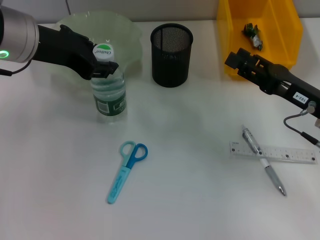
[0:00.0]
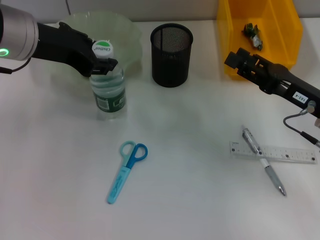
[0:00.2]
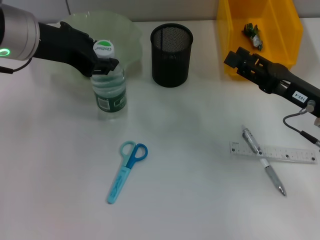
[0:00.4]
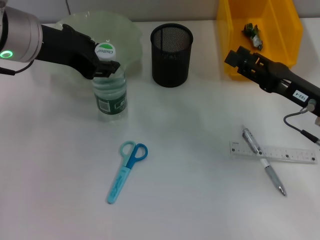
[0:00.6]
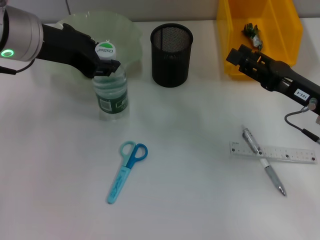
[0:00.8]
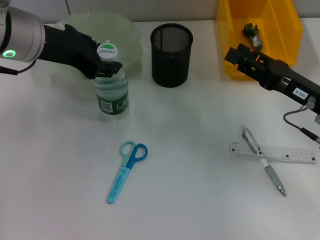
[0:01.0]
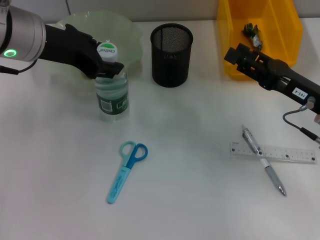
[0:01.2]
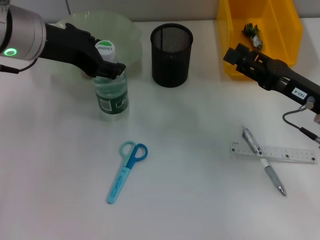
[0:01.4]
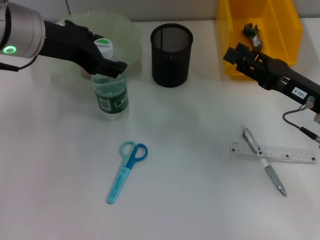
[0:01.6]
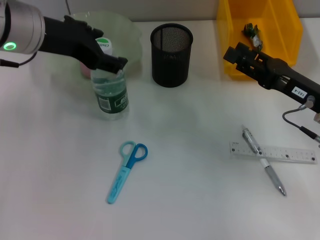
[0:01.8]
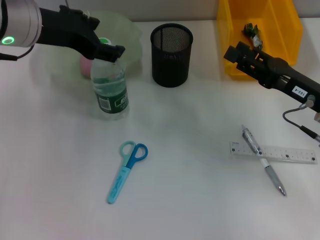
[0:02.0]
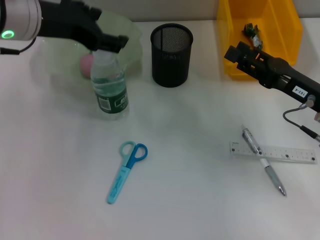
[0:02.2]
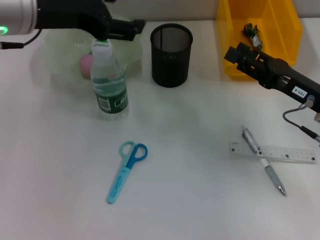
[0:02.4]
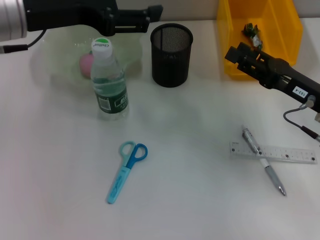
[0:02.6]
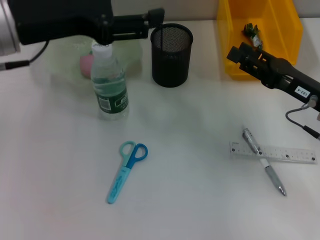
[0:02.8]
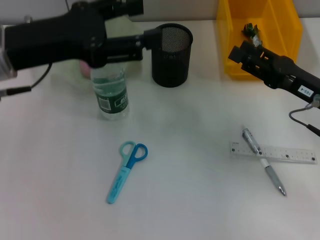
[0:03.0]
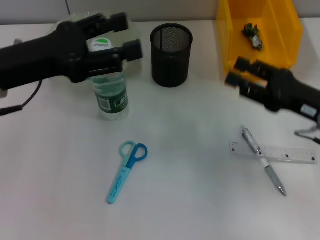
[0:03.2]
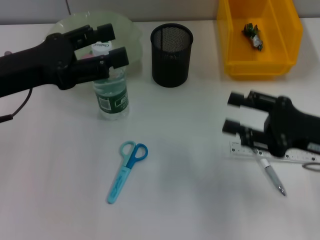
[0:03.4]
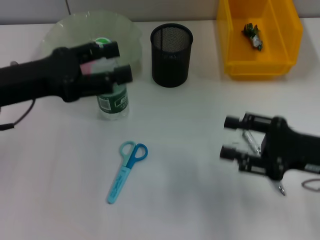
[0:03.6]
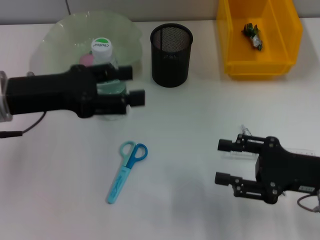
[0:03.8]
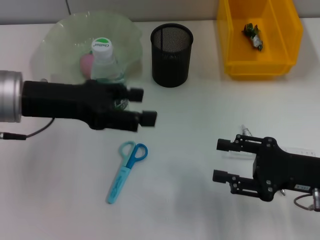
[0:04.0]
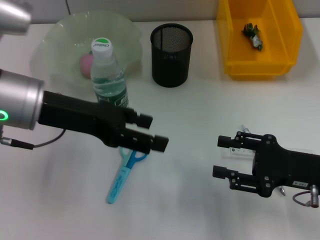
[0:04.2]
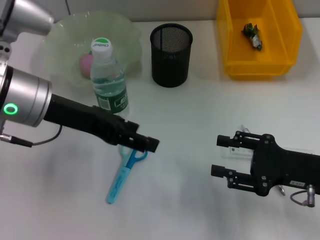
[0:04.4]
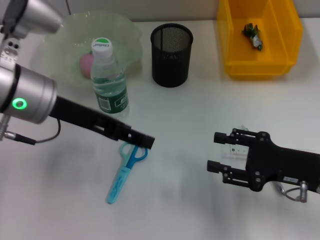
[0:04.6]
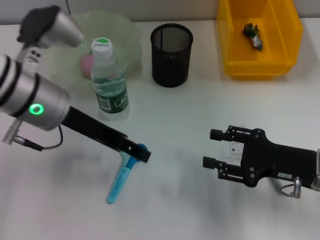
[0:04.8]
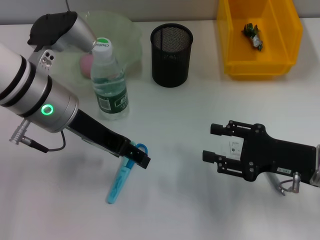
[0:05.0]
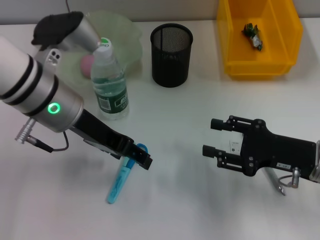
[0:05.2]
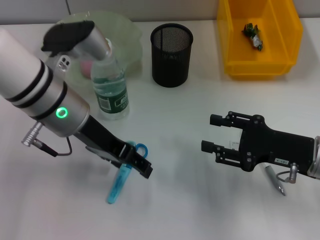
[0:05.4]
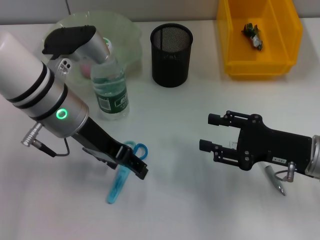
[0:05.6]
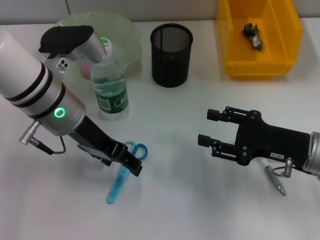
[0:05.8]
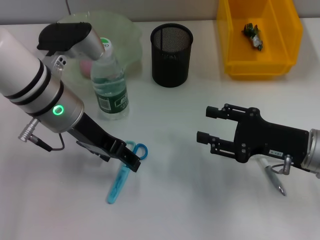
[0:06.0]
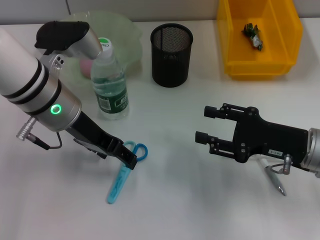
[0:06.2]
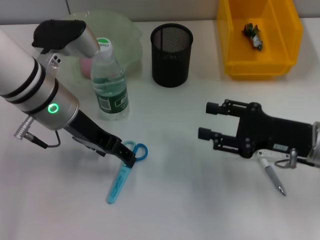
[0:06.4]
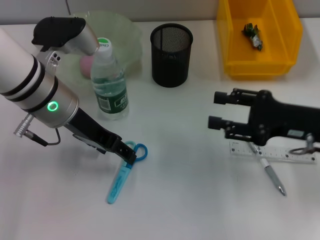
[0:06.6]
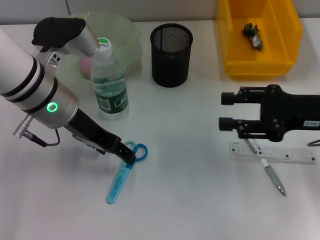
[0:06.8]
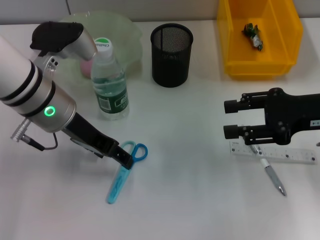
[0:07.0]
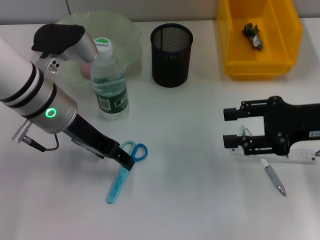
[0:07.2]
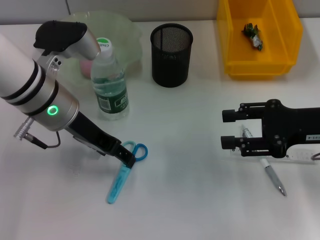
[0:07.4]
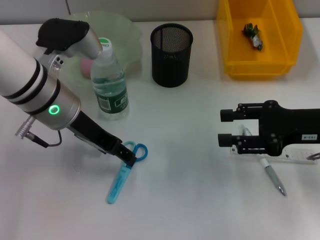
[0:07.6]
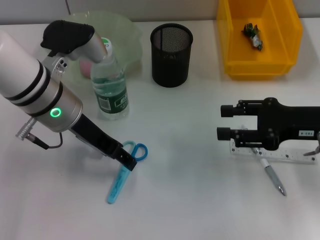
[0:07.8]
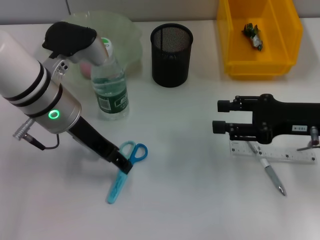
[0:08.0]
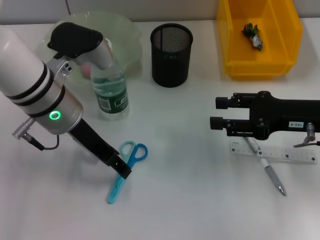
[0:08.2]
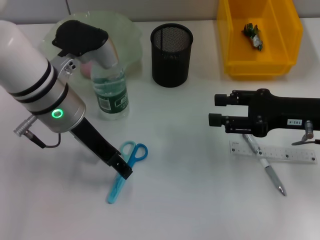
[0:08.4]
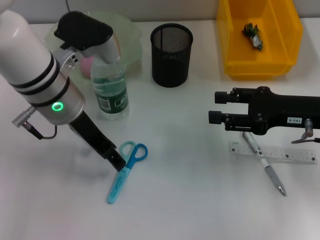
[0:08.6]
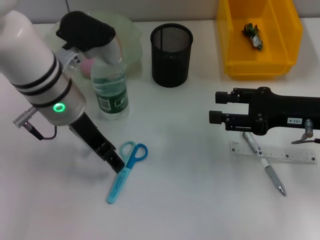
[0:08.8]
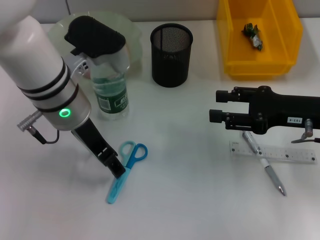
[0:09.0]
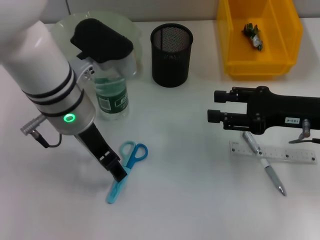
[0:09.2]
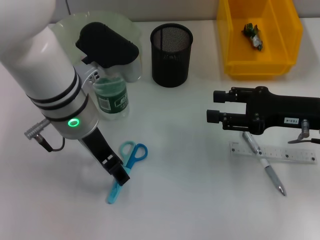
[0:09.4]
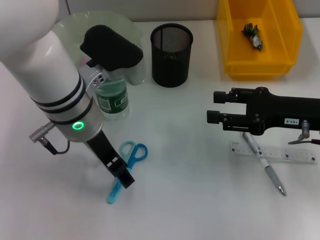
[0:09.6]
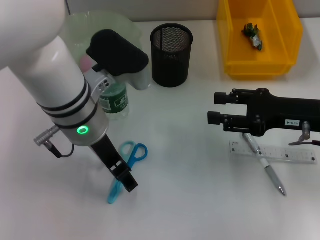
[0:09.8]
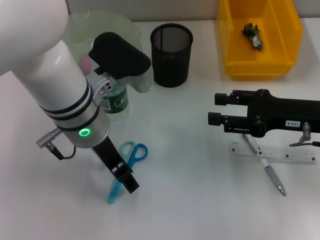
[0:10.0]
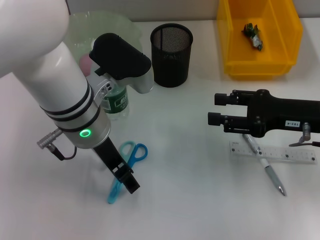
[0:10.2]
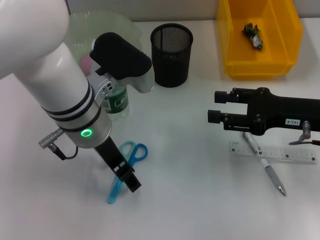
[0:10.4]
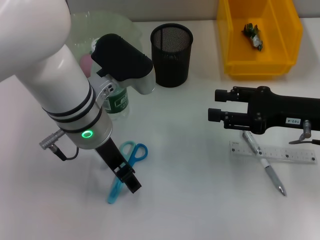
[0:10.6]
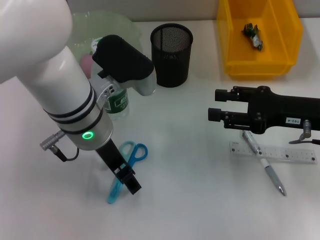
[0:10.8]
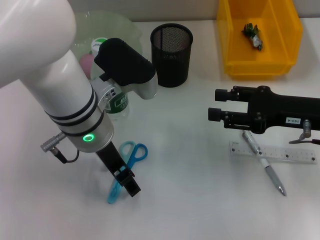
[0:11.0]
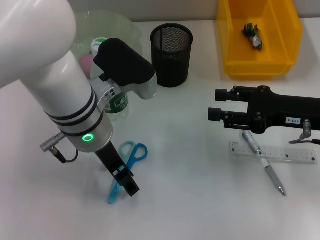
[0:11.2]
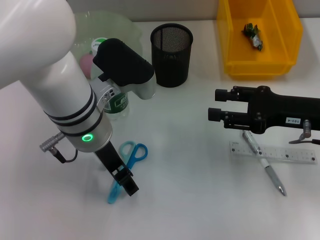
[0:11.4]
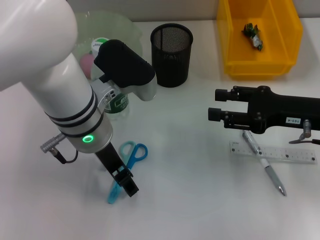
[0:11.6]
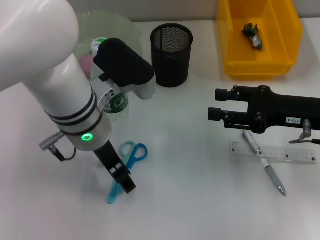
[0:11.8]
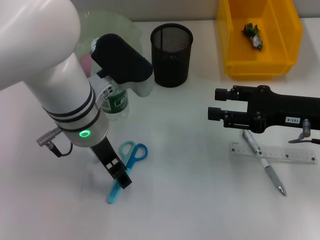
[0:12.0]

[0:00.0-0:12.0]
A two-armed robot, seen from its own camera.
0:00.0 to 0:01.6: The two grippers keep their place.
0:01.6 to 0:03.0: The left gripper ends up some 5 cm from where it was.
0:03.0 to 0:04.4: The right gripper moves backward, approximately 5 cm.
0:04.4 to 0:06.0: The left gripper shifts by roughly 5 cm.
0:06.0 to 0:07.6: The right gripper shifts roughly 5 cm upward.
0:07.6 to 0:09.0: The grippers stay close to where they were, moving slightly.
0:09.0 to 0:12.0: There are only small adjustments of the grippers.

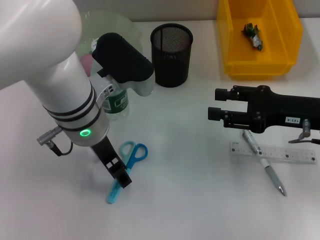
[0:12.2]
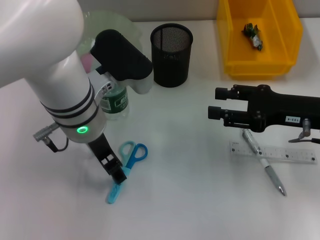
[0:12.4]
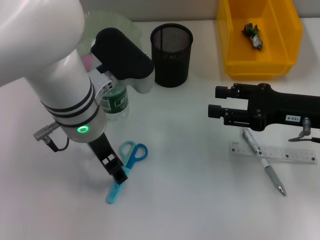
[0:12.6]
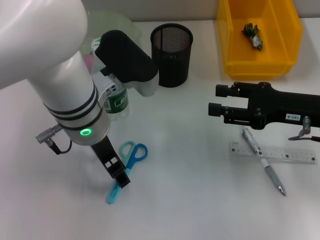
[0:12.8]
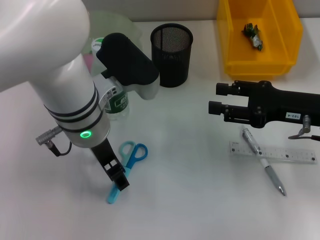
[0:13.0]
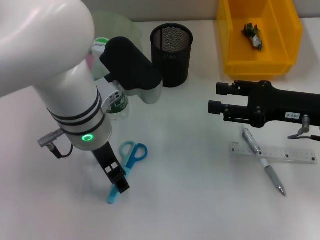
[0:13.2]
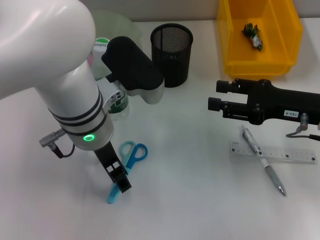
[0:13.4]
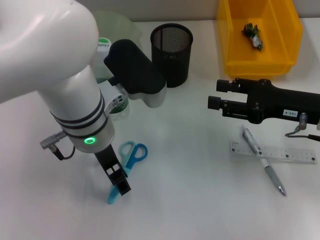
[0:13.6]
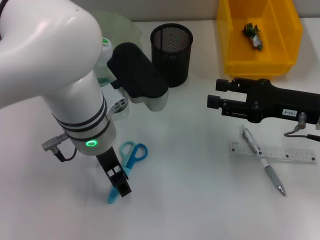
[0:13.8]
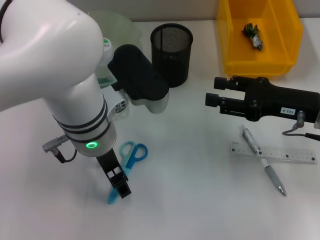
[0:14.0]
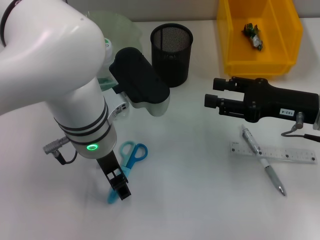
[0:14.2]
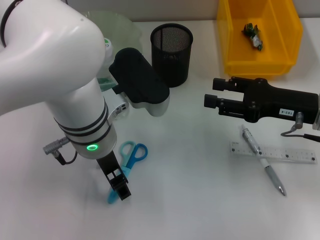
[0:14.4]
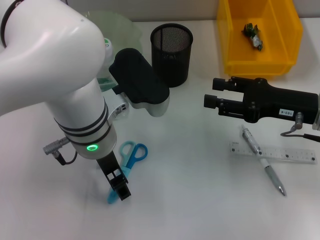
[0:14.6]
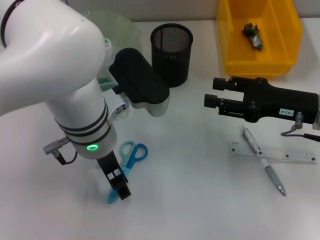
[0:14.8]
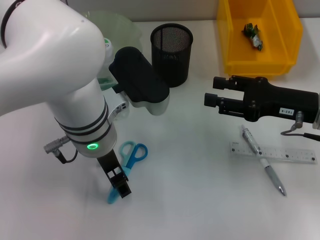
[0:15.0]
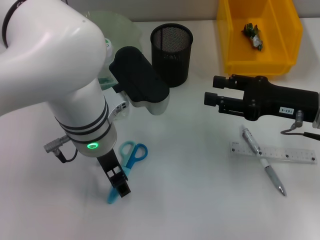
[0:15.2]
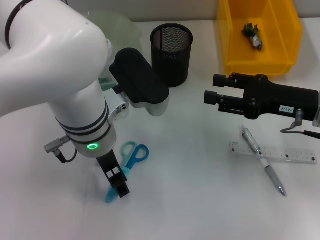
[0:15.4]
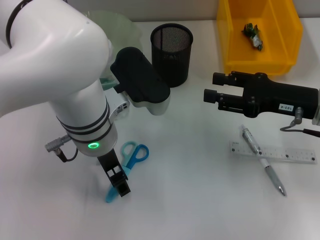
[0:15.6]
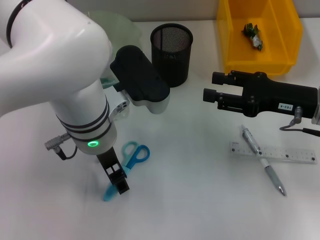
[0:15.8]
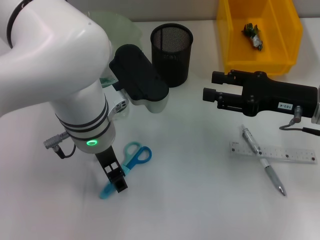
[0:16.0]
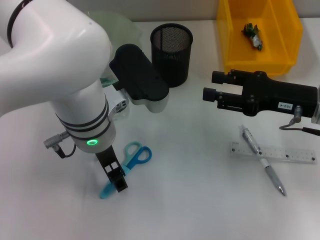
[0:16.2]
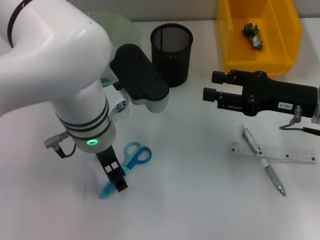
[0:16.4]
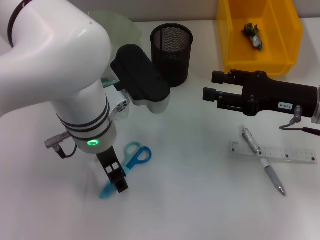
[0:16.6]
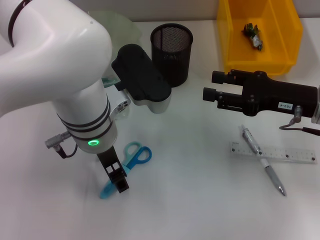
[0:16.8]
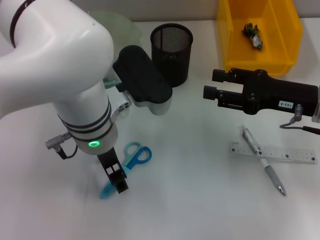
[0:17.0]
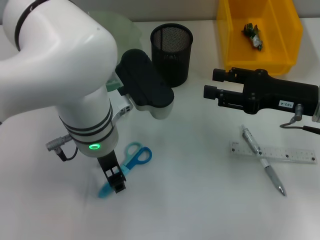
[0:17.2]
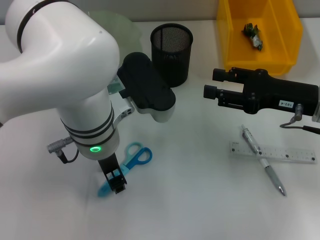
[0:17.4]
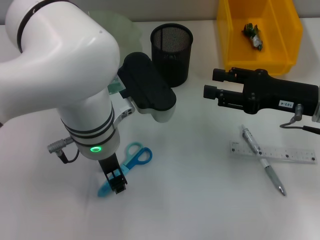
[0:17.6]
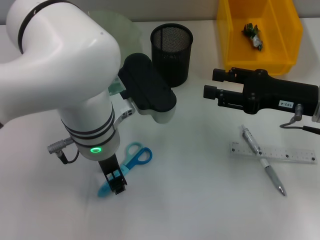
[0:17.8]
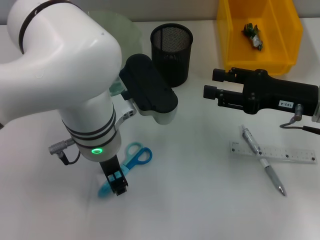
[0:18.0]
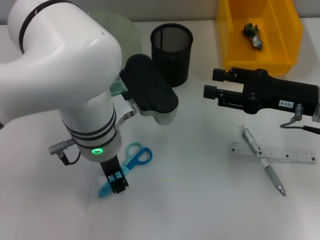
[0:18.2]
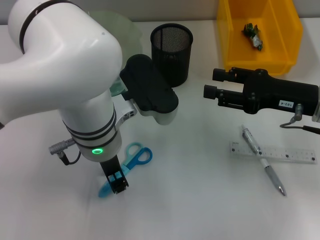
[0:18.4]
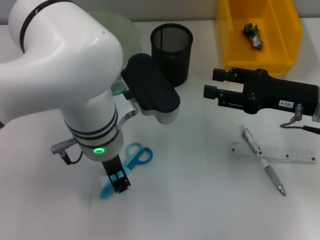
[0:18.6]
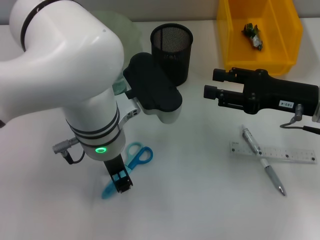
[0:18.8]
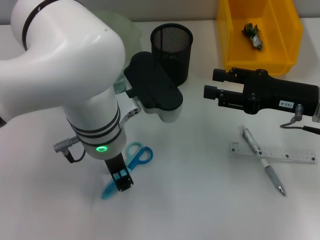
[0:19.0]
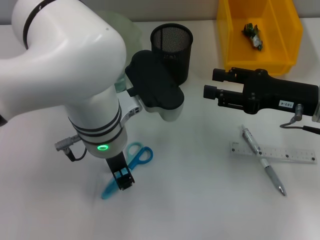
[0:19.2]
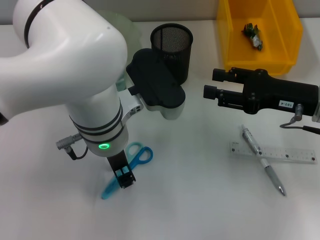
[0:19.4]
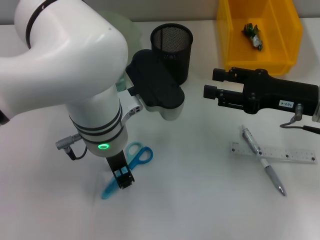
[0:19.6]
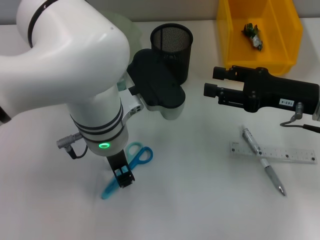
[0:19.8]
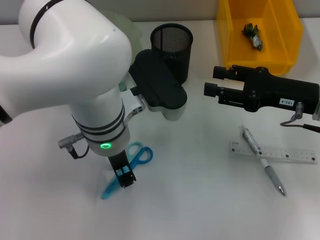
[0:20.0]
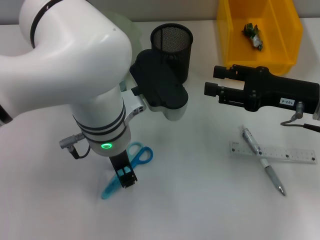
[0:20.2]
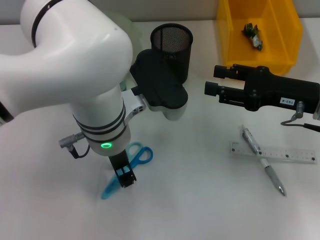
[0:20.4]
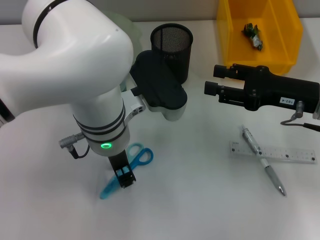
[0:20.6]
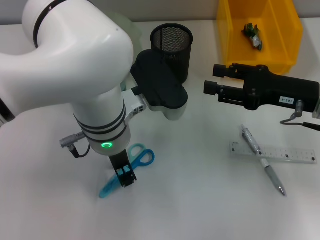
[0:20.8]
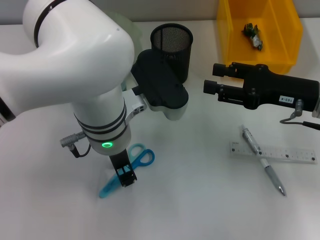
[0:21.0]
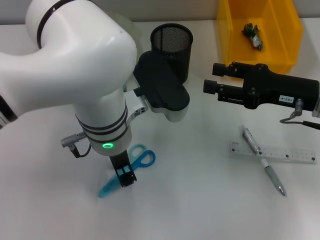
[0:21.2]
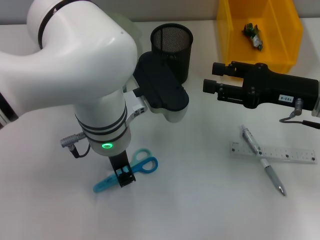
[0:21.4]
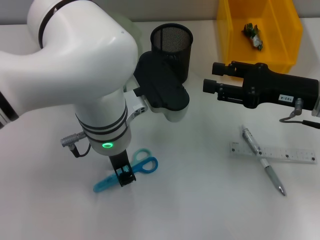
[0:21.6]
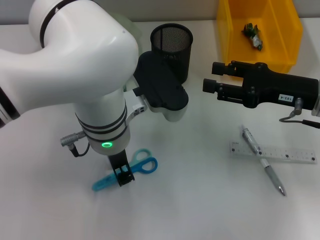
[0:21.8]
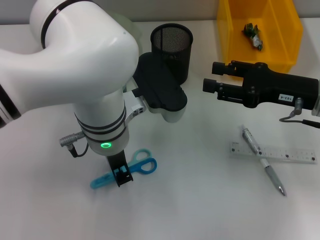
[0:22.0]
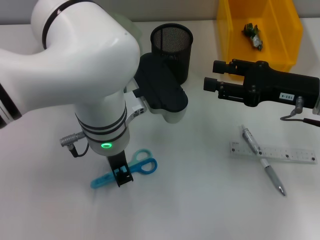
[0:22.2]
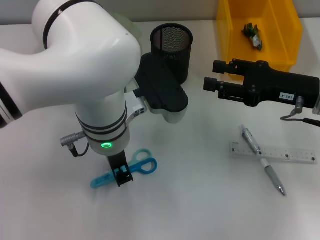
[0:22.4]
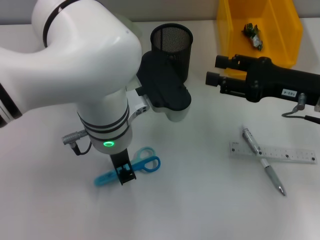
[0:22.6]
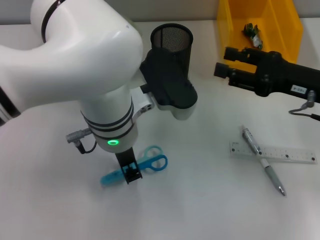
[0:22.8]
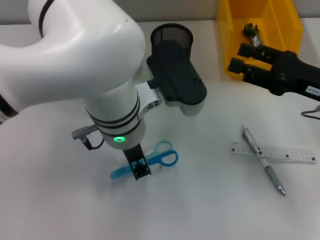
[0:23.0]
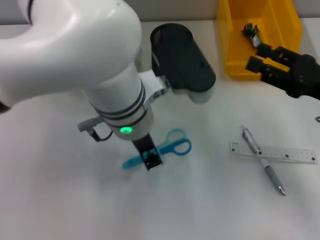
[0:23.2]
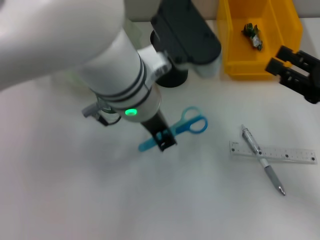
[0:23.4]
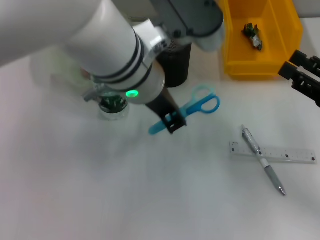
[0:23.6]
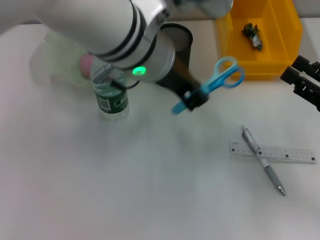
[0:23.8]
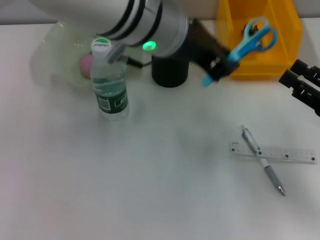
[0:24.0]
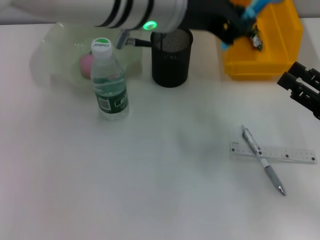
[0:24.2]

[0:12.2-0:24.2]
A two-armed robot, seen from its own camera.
Step, 0:12.2 to 0:22.4: Grab the blue scissors with the left hand.
0:13.8 to 0:16.6: Both grippers stay put.
0:16.6 to 0:18.2: The left gripper closes up.
0:18.2 to 0:21.2: The two grippers keep their place.
0:21.2 to 0:22.6: The two grippers keep their place.
0:22.6 to 0:24.2: The right gripper travels backward and to the right by approximately 10 cm. Meanwhile the left gripper heads upward, covering some 10 cm.
